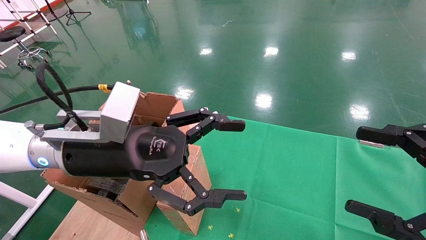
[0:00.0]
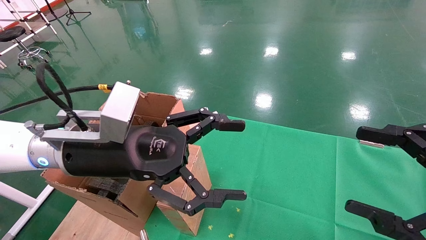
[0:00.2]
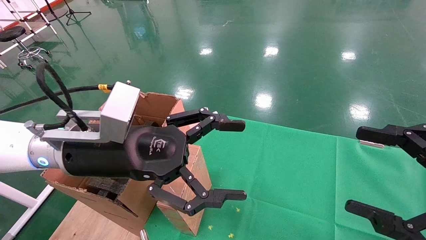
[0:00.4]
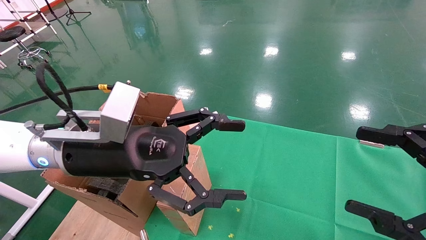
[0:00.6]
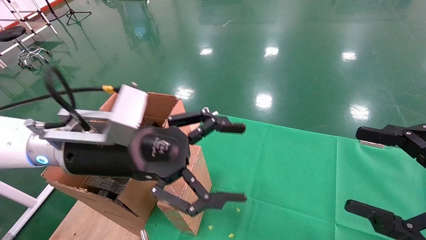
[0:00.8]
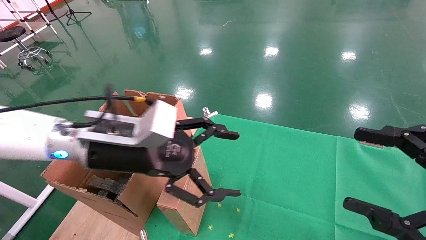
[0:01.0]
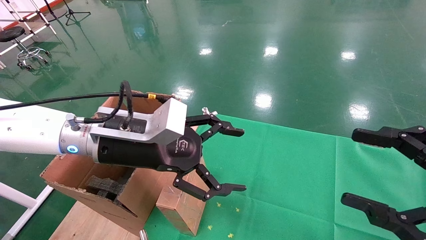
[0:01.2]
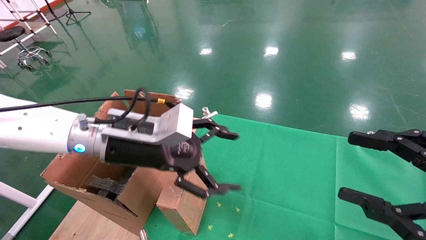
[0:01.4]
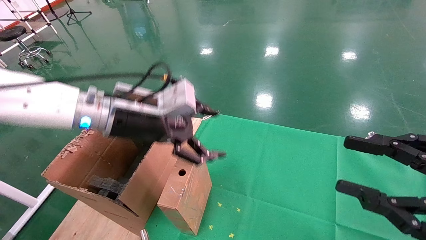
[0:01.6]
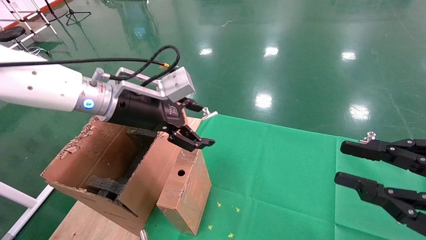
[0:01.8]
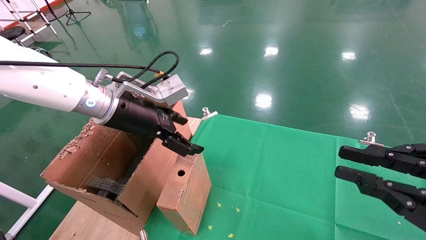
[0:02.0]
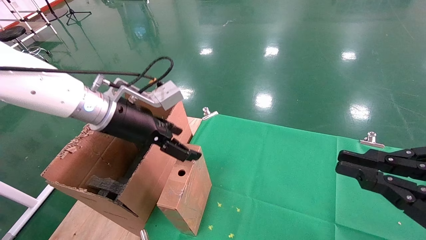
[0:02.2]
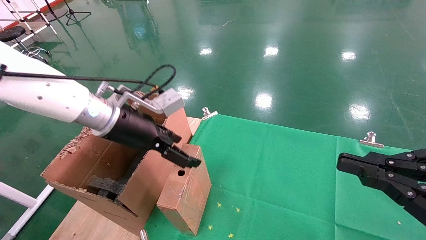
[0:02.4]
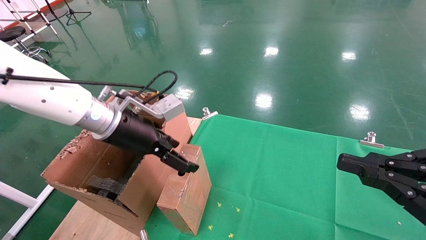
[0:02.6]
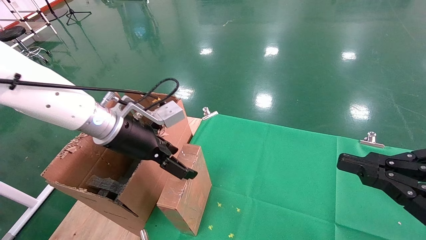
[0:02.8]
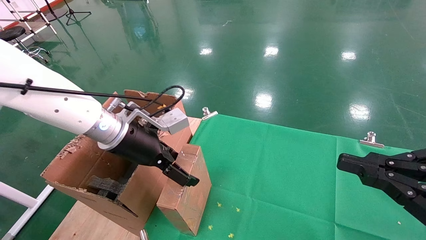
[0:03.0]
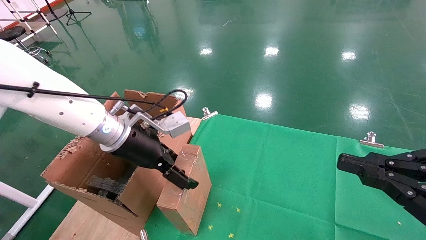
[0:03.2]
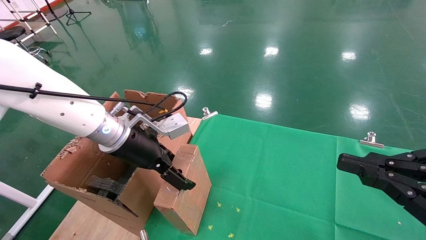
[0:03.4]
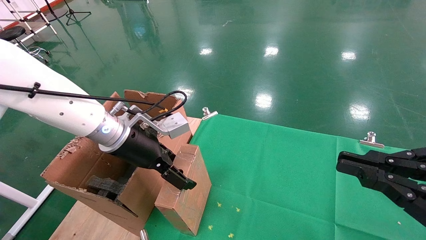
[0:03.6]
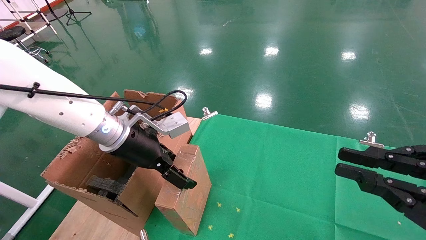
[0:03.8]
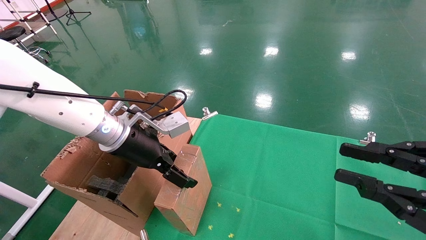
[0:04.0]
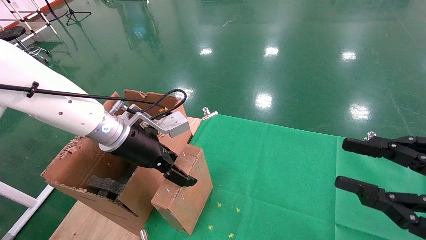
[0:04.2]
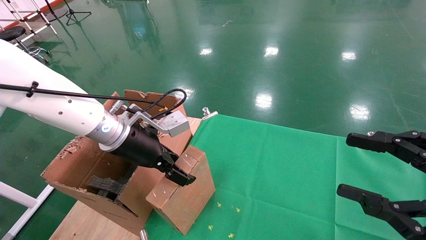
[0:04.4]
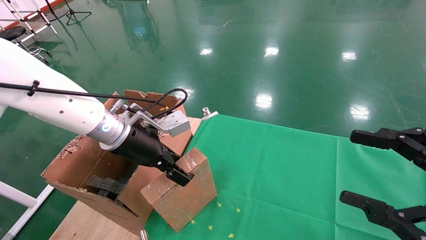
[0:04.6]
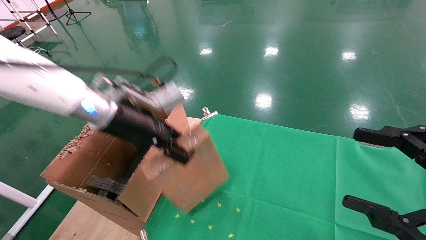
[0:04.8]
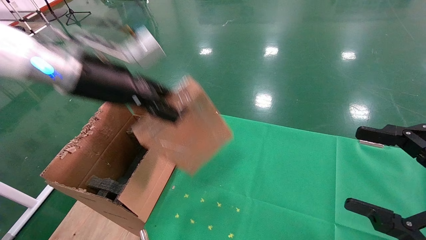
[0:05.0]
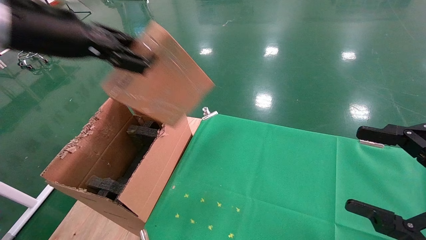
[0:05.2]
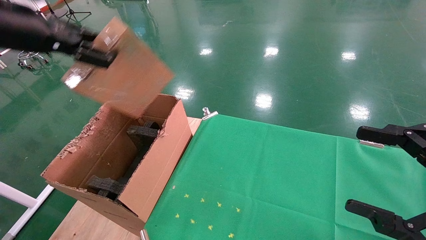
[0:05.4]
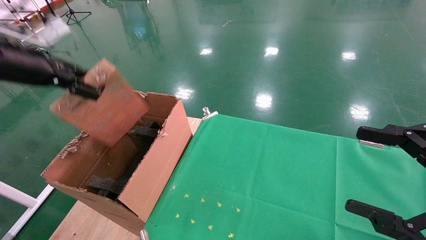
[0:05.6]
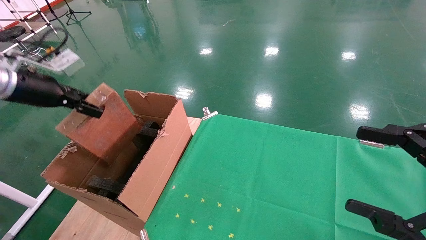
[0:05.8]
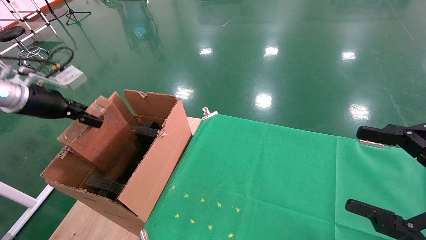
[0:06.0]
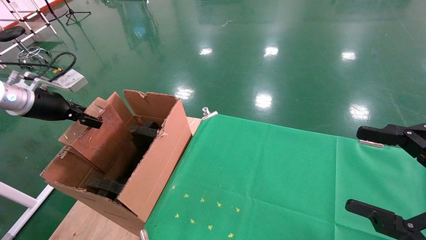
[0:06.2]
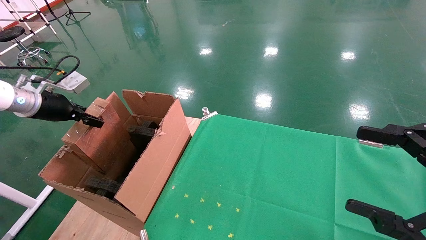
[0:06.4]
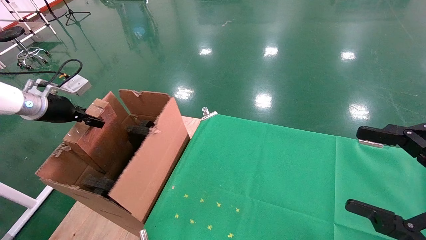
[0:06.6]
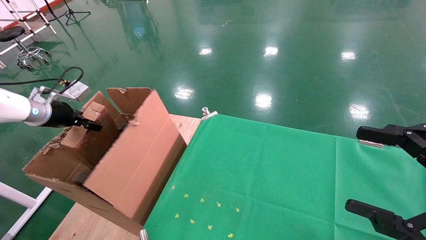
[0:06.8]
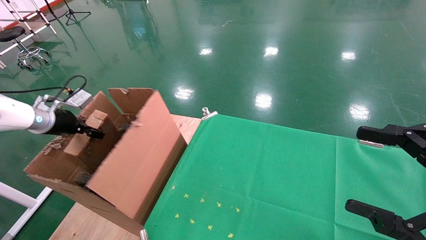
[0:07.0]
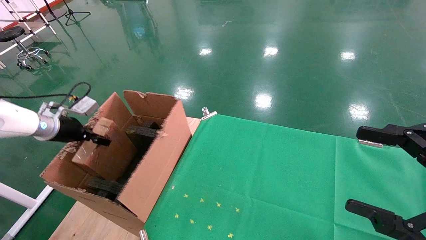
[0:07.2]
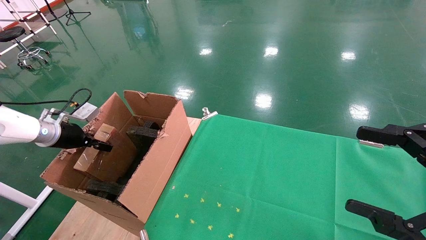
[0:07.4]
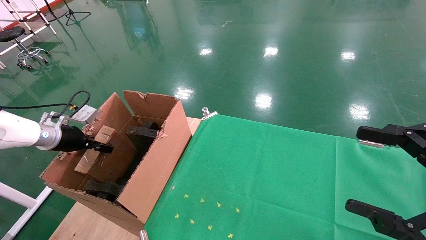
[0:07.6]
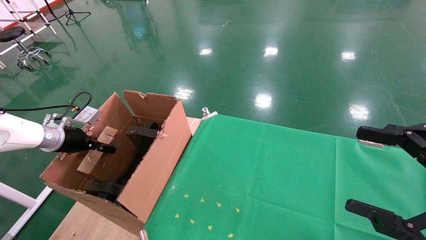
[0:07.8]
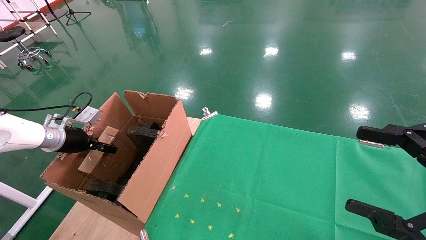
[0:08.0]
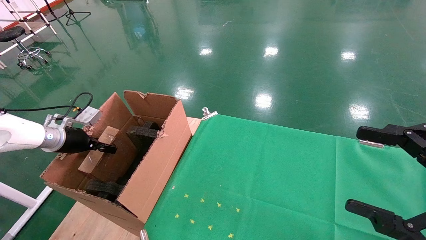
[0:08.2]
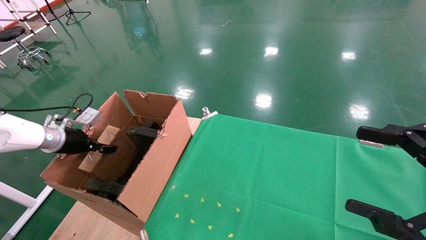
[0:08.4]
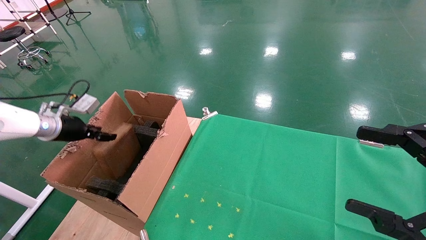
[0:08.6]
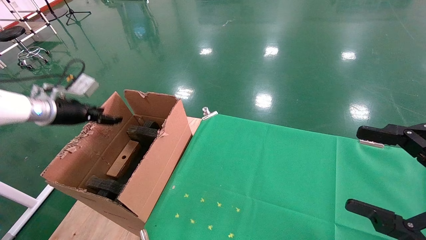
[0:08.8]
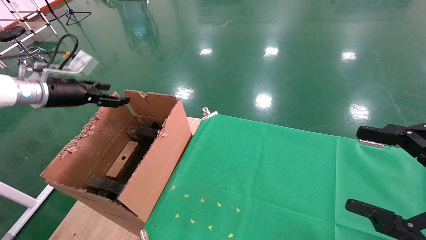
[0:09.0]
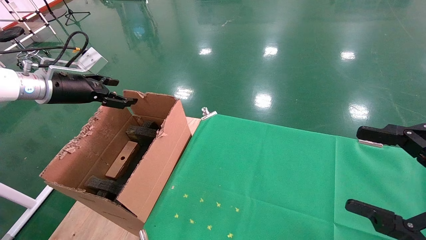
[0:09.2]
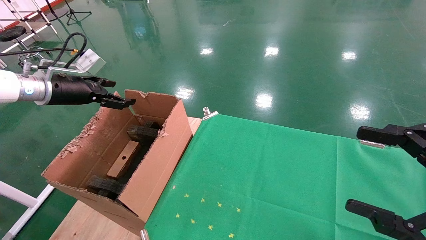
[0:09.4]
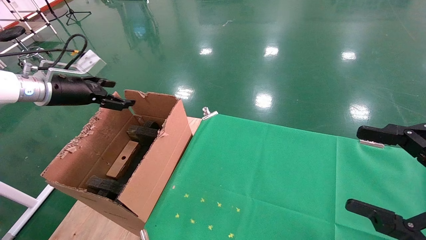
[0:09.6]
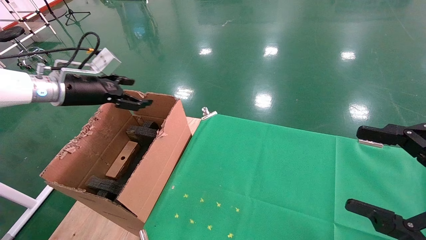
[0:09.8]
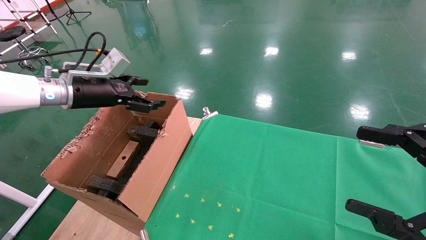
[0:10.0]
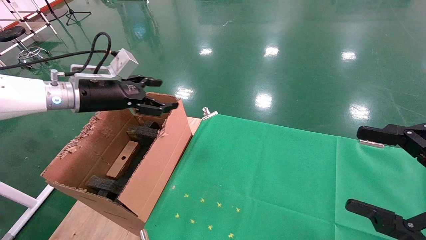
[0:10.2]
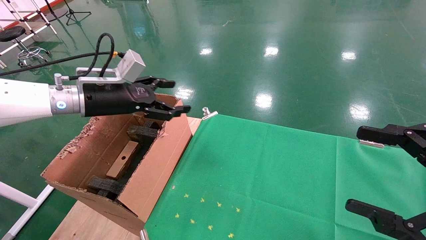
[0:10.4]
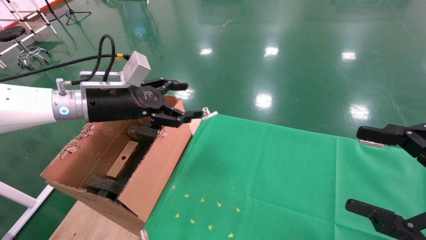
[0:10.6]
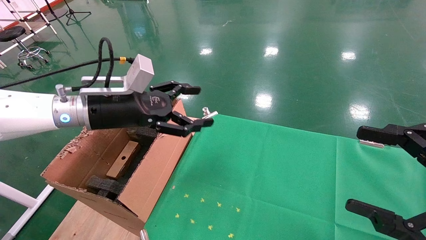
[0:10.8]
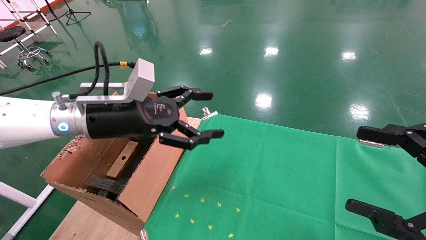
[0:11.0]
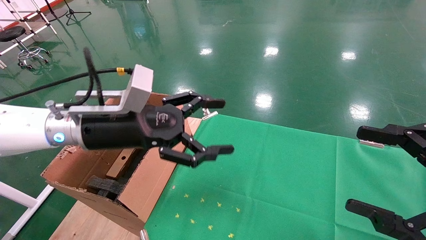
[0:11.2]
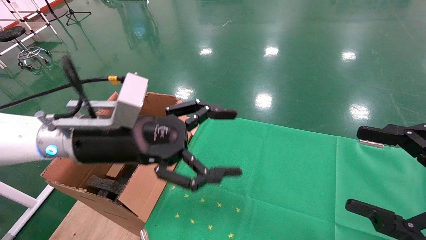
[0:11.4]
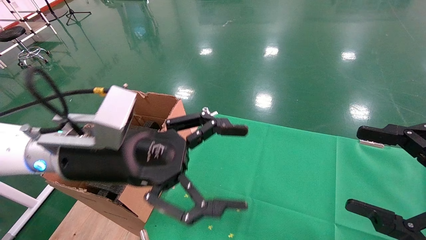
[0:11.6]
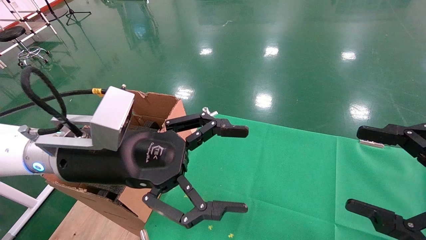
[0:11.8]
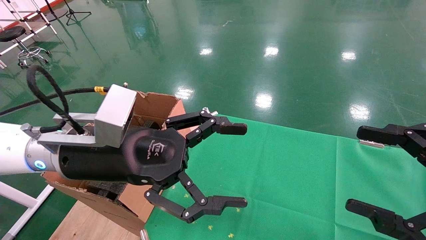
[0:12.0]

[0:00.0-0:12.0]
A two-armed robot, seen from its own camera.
Task of the whole recording: using a robotic arm to pick up a cardboard box and palace it the carton.
Step, 0:01.2 to 0:04.6: Pick up the mouse and the power cord paper box.
Step, 0:04.8 to 0:08.6: Place the mouse and the power cord paper box into the container.
0:00.0 to 0:01.6: The right gripper closes its fingers. Meanwhile the left gripper travels forward by about 10 cm.
0:01.6 to 0:03.0: The right gripper closes up.
0:03.0 to 0:04.4: The right gripper opens its fingers; the left gripper closes up.
0:04.4 to 0:06.0: The right gripper opens its fingers, while the left gripper travels to the left by approximately 25 cm, and closes.
0:06.0 to 0:07.6: The left gripper moves downward, approximately 15 cm.
0:07.6 to 0:09.0: The left gripper shifts roughly 10 cm upward, and opens its fingers.
0:09.0 to 0:10.4: The left gripper goes approximately 15 cm to the right.
0:10.4 to 0:12.0: The left gripper is displaced backward and to the right by about 20 cm.

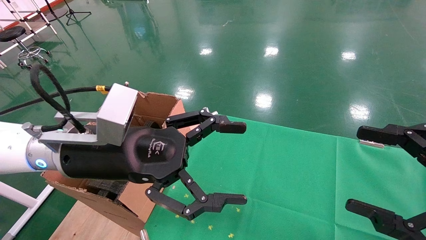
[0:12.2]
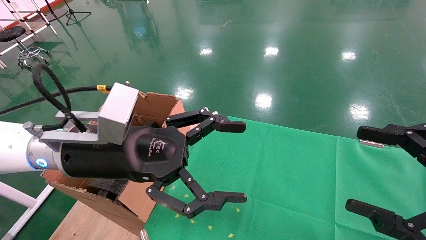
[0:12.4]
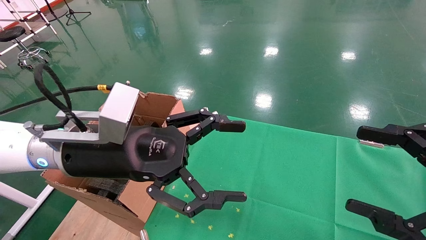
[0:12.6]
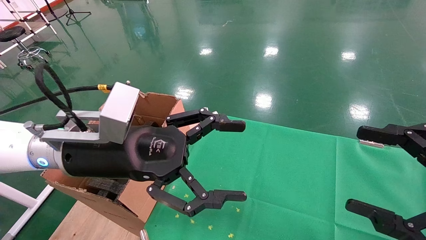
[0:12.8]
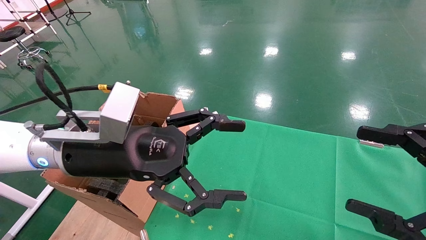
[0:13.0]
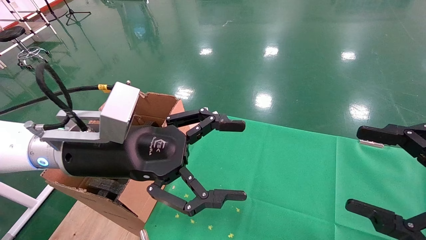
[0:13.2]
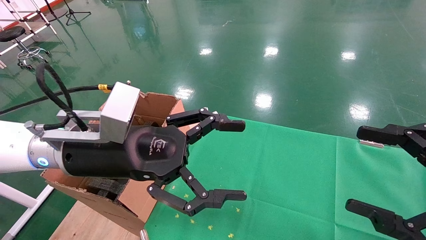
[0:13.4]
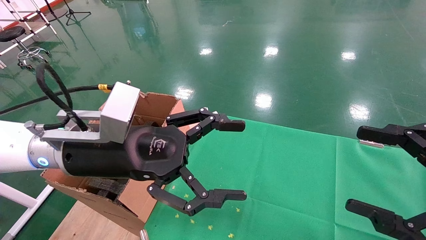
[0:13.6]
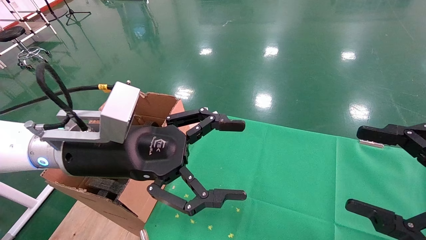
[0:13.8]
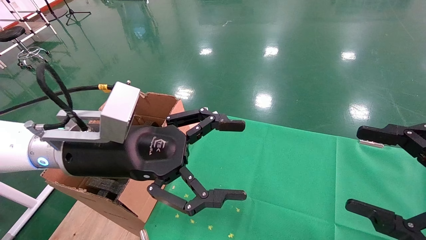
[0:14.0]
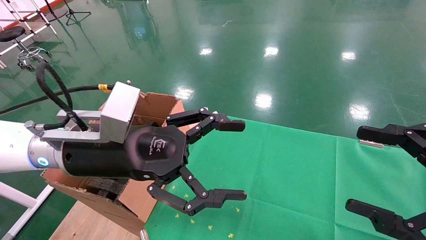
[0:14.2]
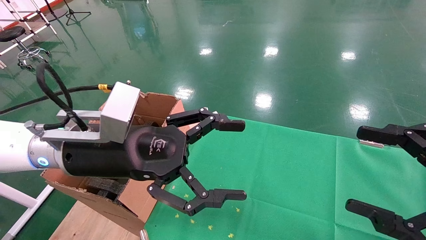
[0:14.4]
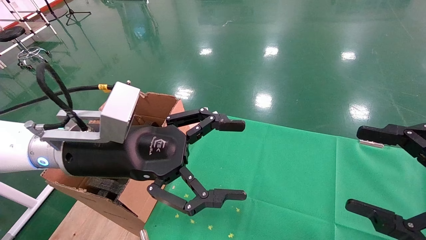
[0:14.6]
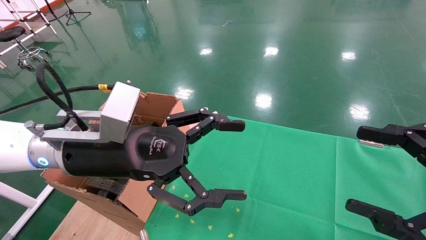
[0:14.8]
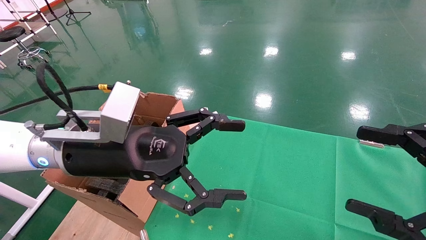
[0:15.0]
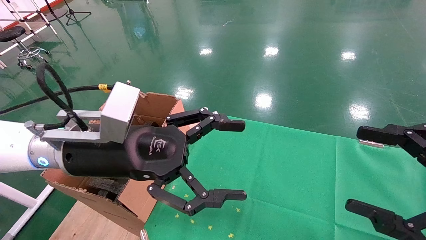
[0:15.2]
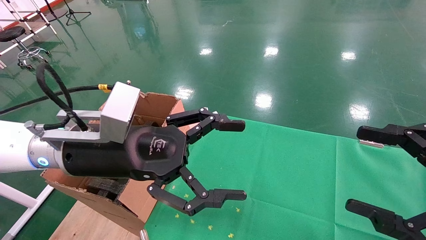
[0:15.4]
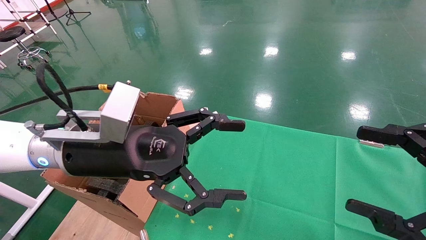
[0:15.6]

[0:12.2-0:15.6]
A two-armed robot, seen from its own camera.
Task of the whole recording: using a robotic arm to pick up a cardboard box and palace it the carton.
0:12.2 to 0:15.6: Both grippers stay put.
